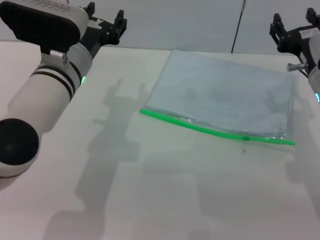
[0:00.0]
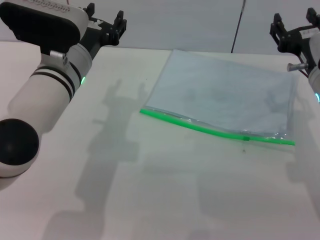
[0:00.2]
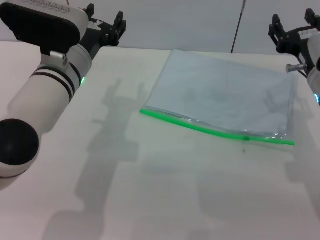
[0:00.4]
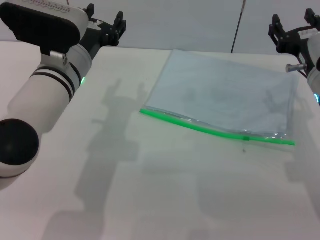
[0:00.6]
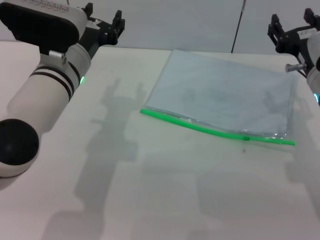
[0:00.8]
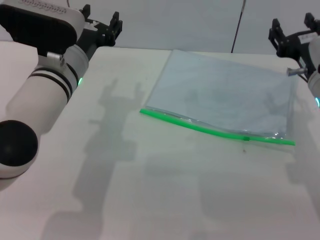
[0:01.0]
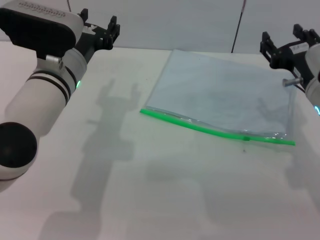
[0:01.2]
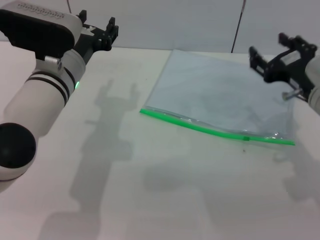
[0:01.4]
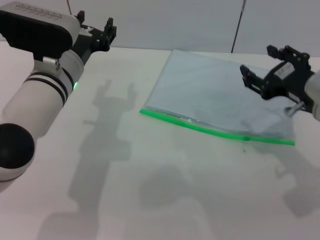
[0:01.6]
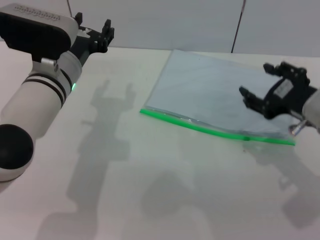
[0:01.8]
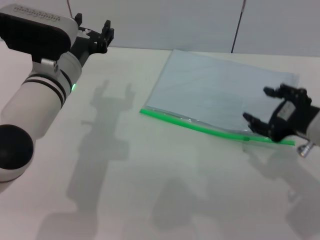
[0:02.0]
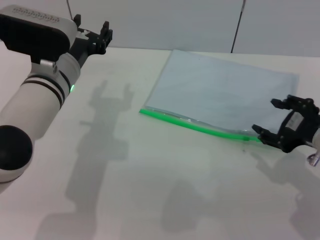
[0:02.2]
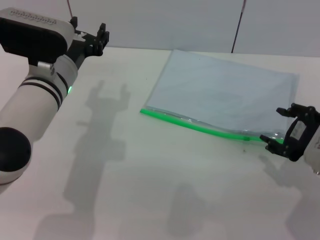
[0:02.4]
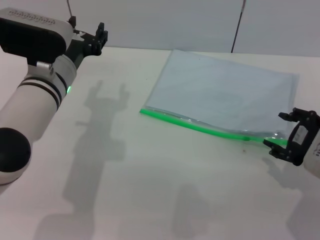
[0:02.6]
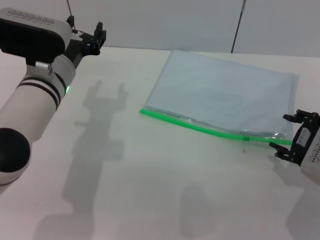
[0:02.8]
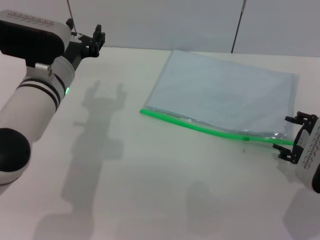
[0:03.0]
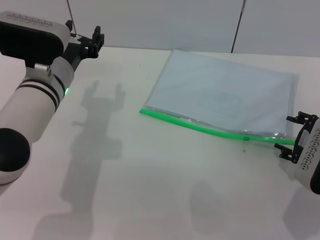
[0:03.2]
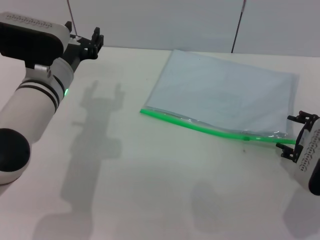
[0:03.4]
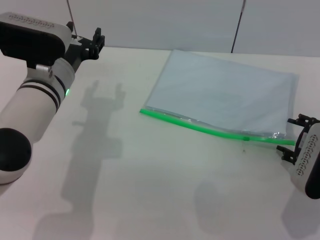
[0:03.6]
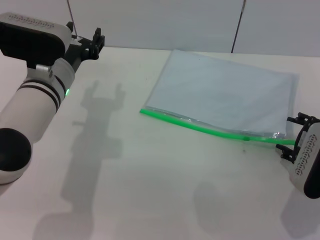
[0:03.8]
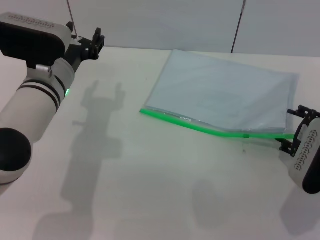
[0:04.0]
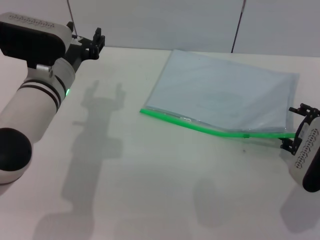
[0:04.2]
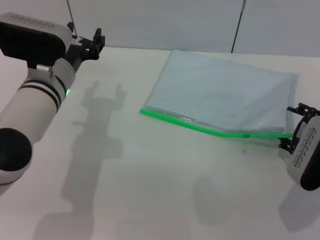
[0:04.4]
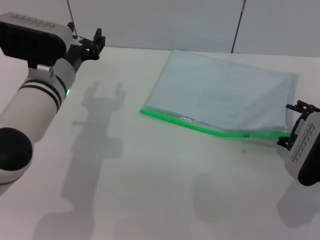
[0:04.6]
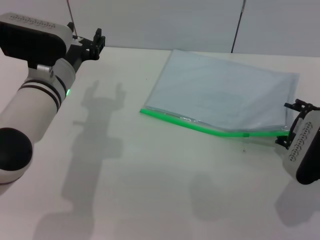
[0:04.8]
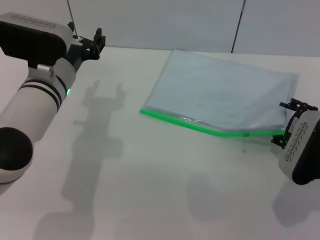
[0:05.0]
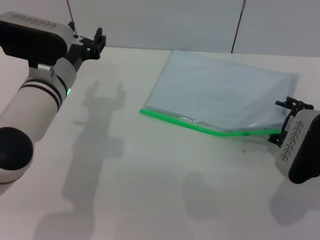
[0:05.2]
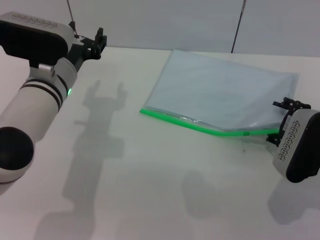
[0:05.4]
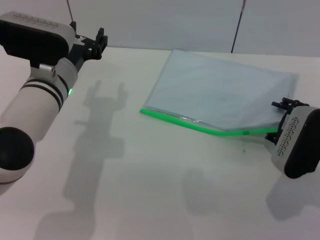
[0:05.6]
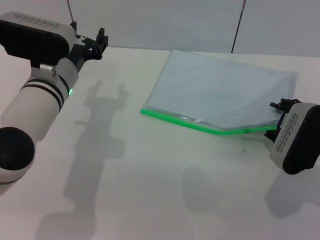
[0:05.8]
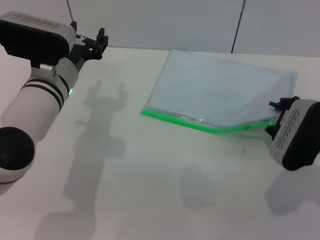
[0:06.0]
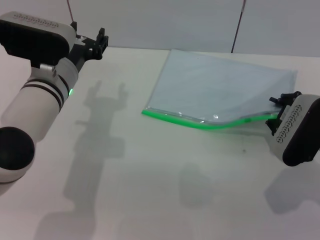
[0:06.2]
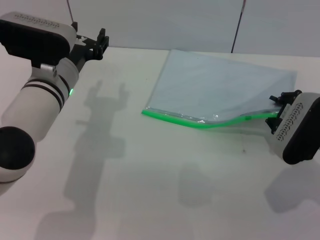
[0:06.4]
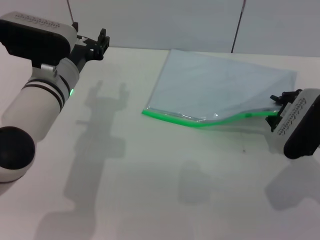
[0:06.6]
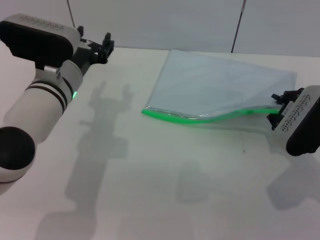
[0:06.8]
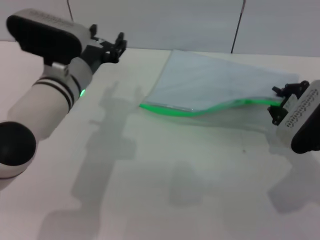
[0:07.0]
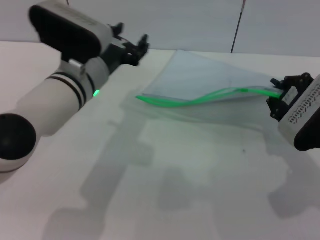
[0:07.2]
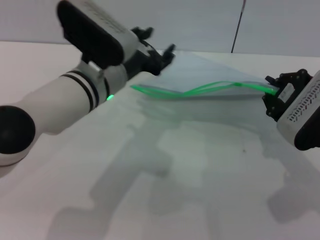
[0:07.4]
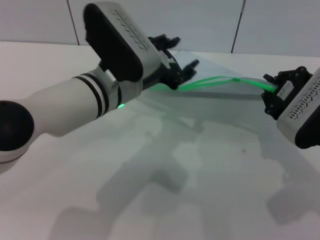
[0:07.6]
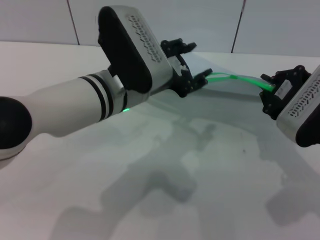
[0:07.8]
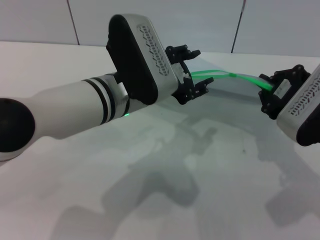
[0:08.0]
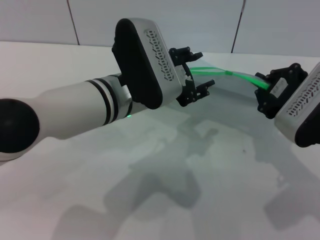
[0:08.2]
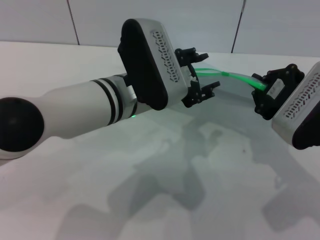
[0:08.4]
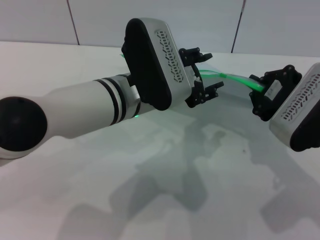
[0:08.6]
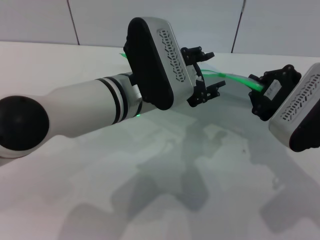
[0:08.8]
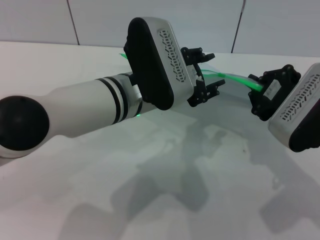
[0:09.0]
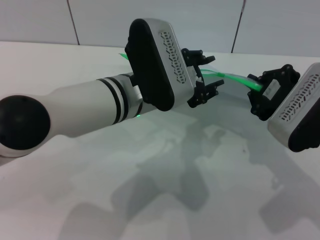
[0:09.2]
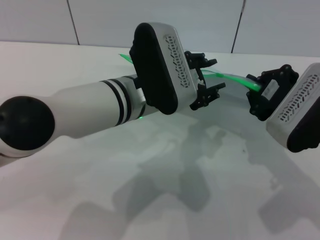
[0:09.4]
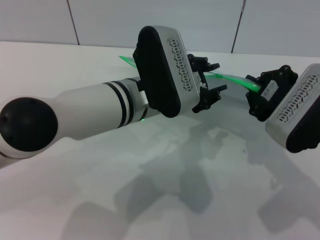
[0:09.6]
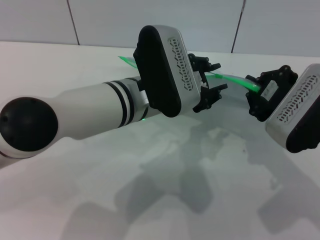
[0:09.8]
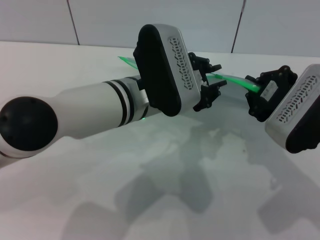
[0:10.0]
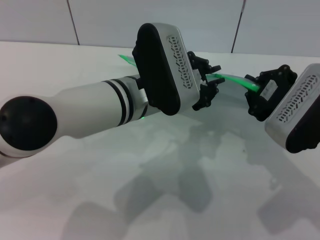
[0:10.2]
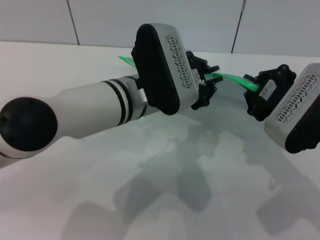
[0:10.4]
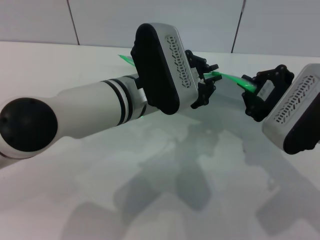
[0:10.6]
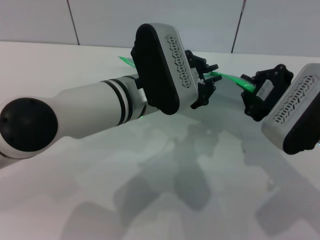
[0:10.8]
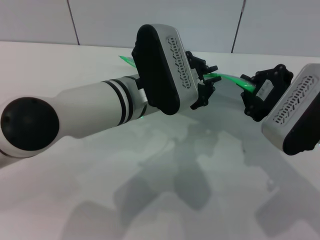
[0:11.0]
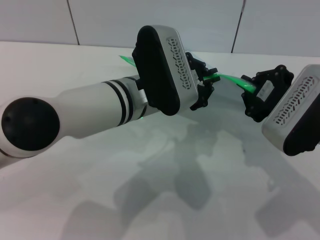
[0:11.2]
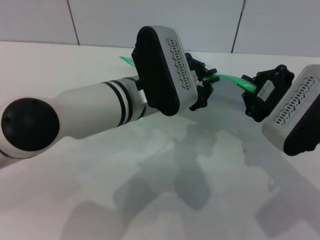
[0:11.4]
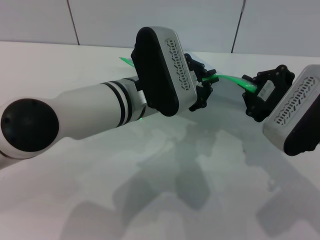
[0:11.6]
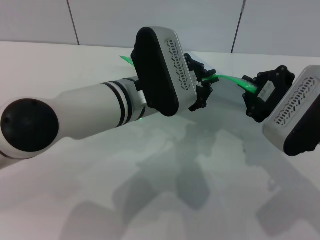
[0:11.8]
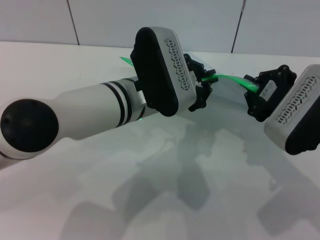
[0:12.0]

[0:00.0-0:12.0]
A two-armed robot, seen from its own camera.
Step, 0:00.0 to 0:07.6: Pick up the transparent plastic bag with the right gripper.
0:01.6 to 0:03.0: The right gripper changes place by roughly 5 cm.
0:03.0 to 0:06.0: There are only small adjustments of the grippers.
0:06.0 to 0:07.6: The right gripper travels upward by roughly 5 cm, and closes. Meanwhile the left gripper moves to the right, about 10 cm.
0:09.0 to 0:10.4: The left gripper closes.
0:10.4 to 0:12.0: Neither gripper changes place.

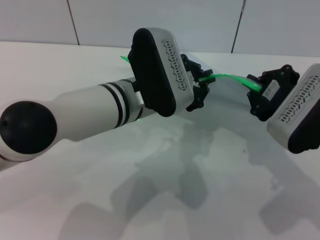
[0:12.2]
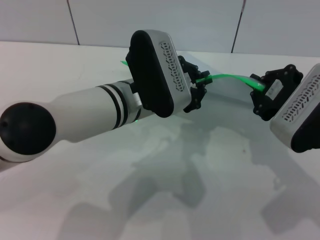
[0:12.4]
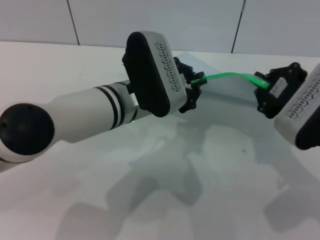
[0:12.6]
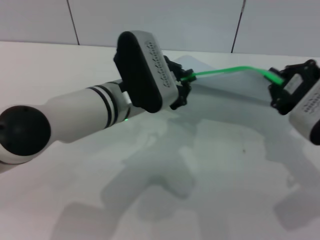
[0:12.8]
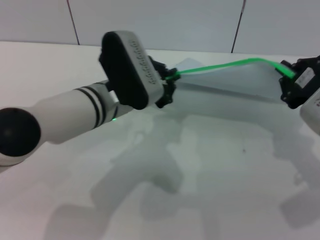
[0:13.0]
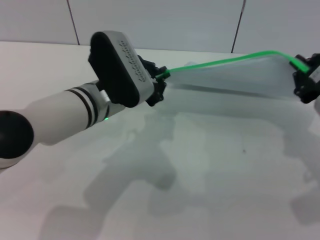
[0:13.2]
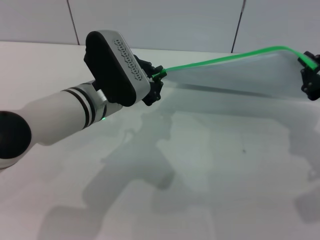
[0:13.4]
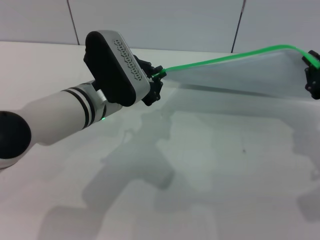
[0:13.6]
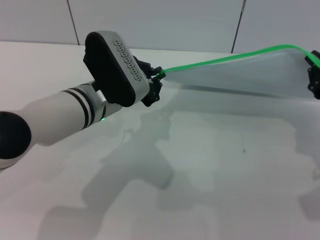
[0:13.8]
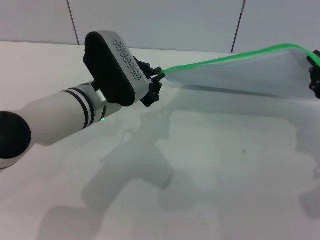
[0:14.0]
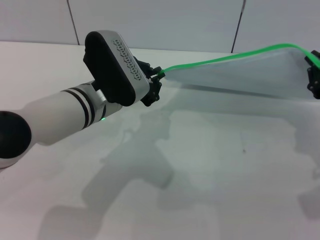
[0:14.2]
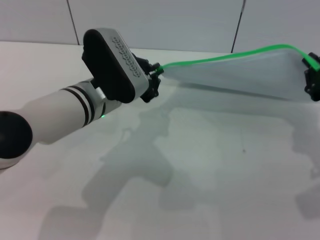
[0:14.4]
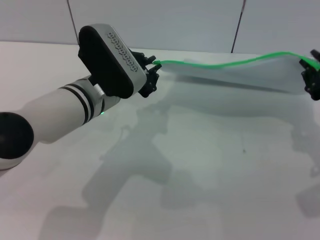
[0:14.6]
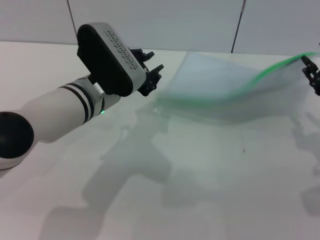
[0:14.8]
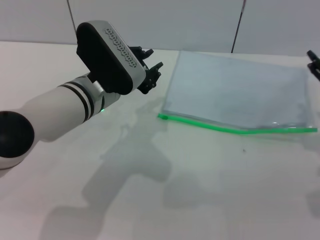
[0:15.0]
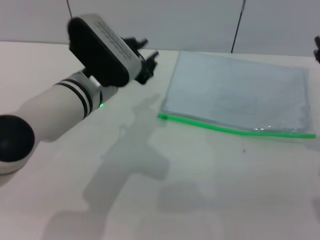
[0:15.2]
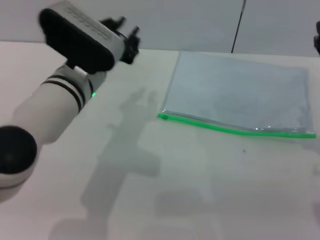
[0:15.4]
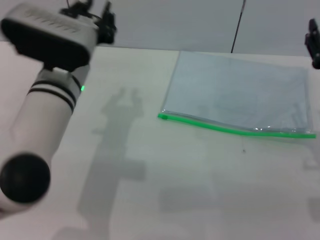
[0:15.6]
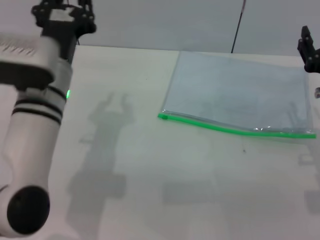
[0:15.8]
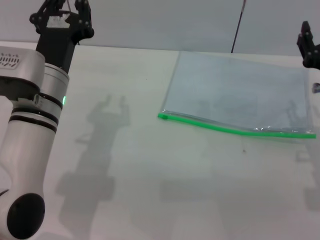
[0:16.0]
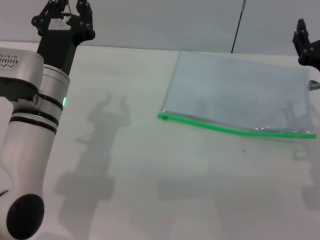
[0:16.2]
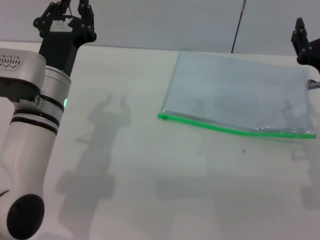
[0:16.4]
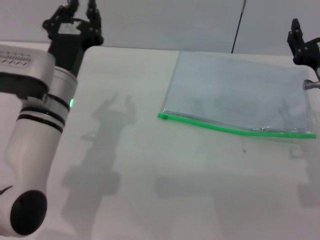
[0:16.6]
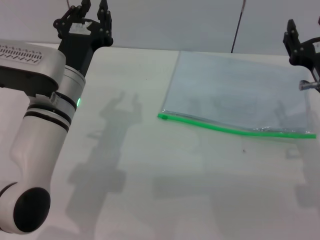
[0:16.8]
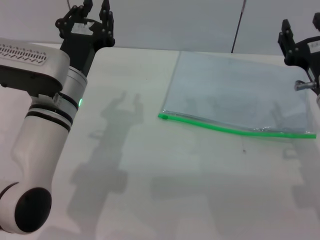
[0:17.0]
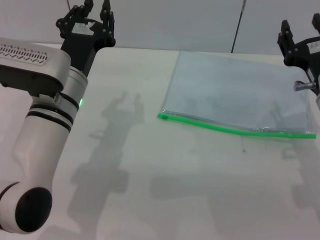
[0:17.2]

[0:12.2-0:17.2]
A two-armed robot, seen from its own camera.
Step, 0:12.2 to 0:14.4: Pulling up the zipper on the transparent plastic bag with the left gripper to close it.
Step, 0:14.8 to 0:15.2: Place the transparent plastic bag.
0:12.2 to 0:13.8: The right gripper shifts roughly 5 cm to the right, while the left gripper is displaced to the left by roughly 5 cm.
0:13.8 to 0:15.6: The left gripper opens. Meanwhile the right gripper opens its fingers.

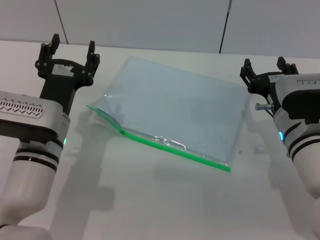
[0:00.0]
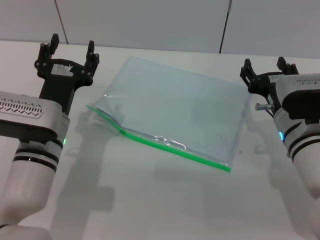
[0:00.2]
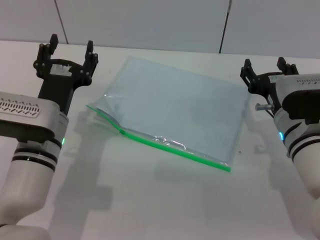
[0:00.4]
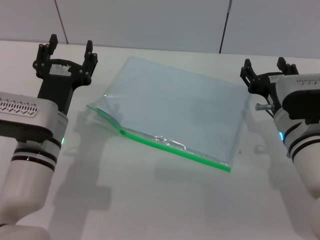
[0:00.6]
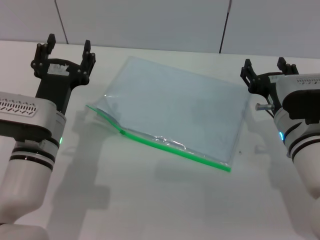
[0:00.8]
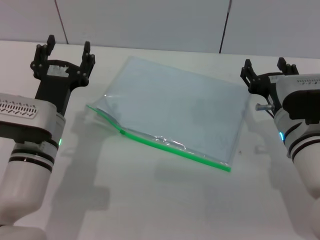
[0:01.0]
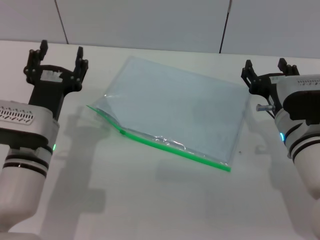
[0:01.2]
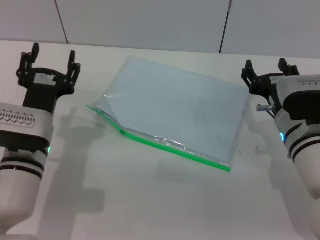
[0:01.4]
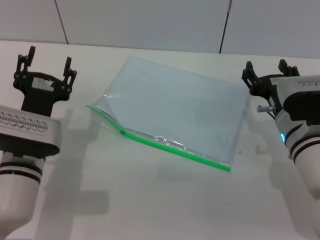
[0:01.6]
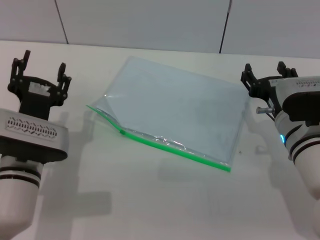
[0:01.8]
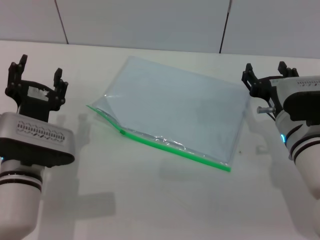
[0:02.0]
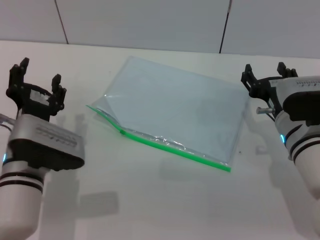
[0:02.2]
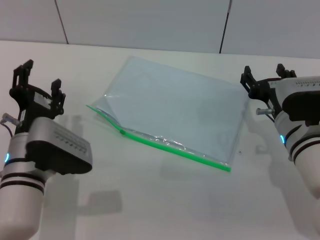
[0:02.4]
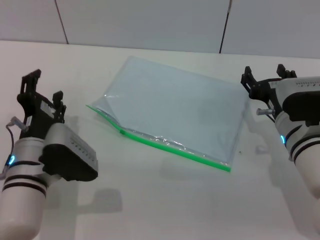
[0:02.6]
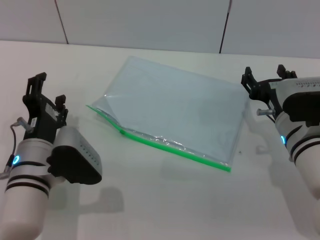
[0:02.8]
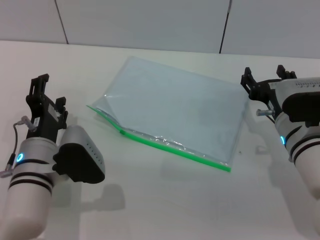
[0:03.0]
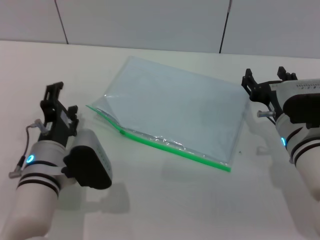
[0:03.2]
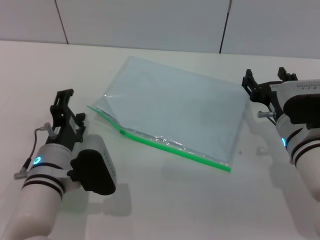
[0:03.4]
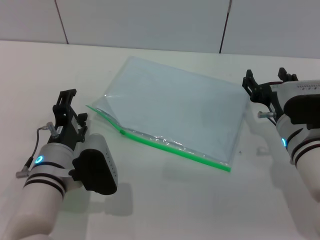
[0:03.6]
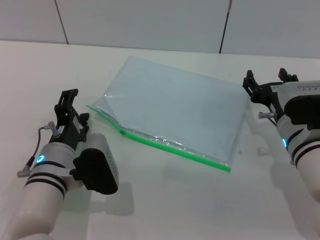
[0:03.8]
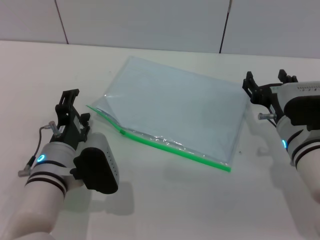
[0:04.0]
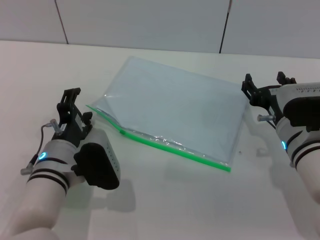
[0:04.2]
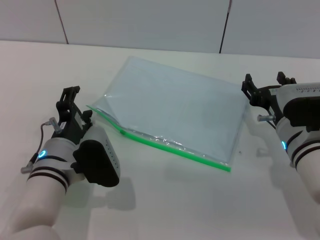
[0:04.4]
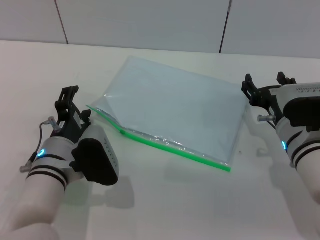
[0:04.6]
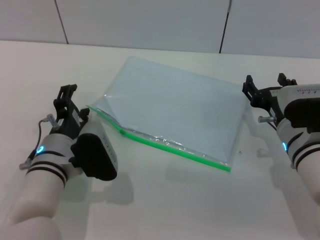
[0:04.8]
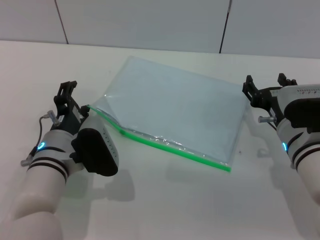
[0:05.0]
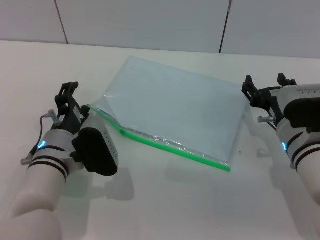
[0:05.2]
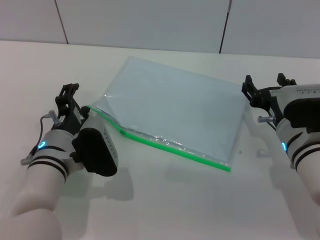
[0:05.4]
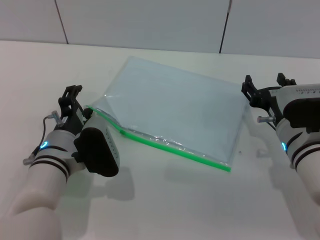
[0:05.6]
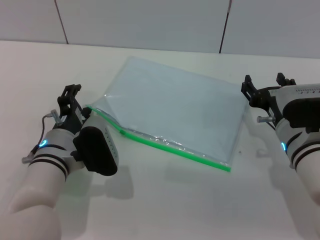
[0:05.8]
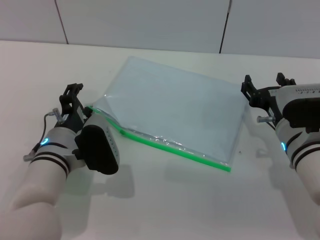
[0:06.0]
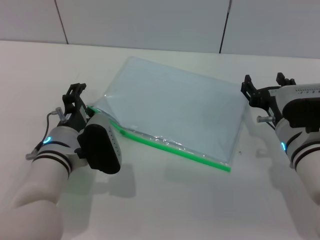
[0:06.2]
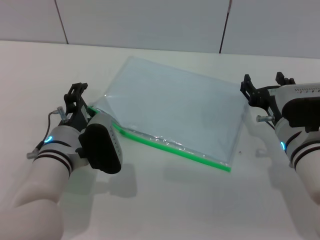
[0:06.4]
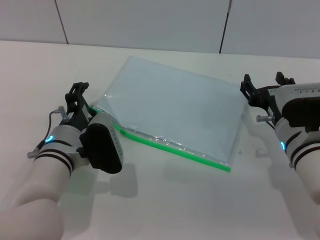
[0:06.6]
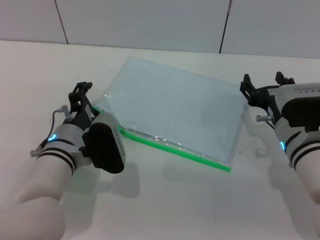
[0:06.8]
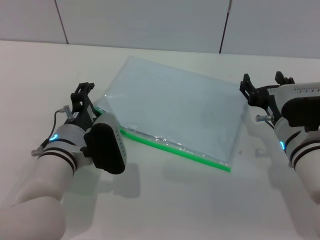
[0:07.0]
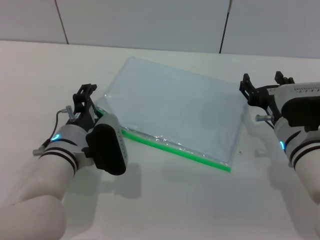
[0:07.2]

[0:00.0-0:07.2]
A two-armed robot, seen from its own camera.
0:00.0 to 0:01.4: The grippers stay close to where they were, moving slightly.
0:02.8 to 0:07.2: The grippers stay close to where they were, moving slightly.
